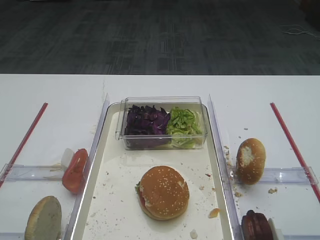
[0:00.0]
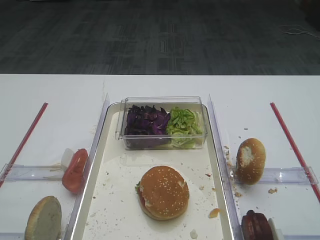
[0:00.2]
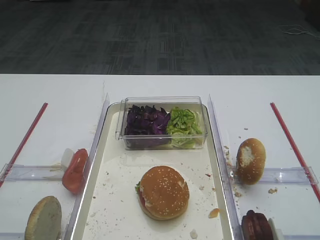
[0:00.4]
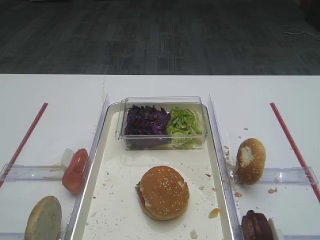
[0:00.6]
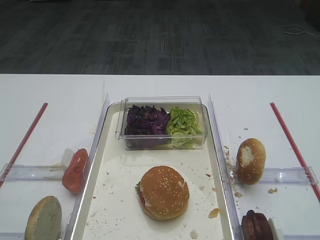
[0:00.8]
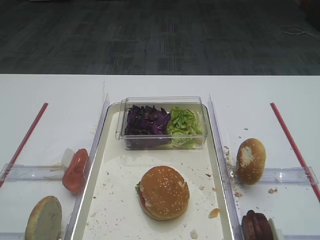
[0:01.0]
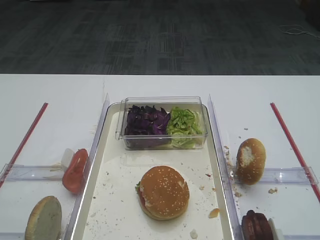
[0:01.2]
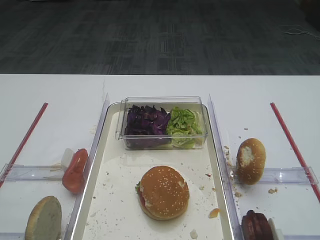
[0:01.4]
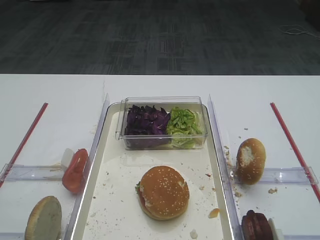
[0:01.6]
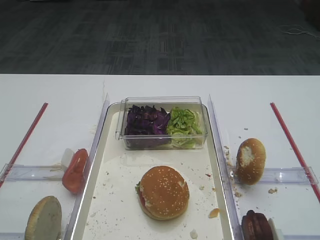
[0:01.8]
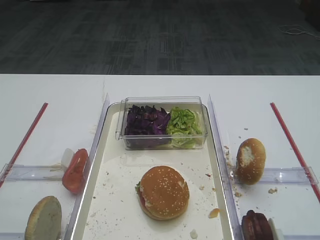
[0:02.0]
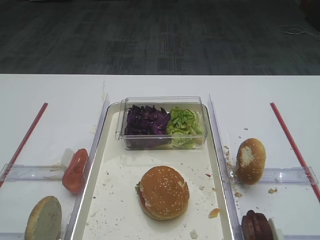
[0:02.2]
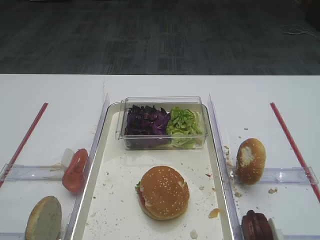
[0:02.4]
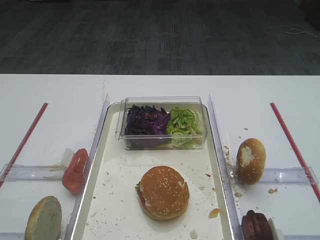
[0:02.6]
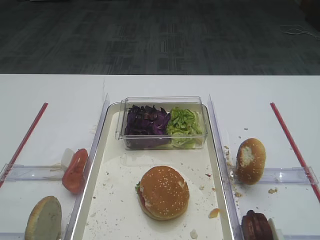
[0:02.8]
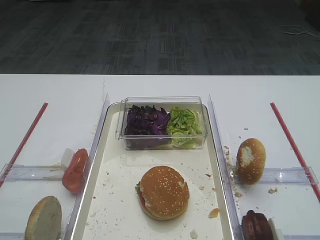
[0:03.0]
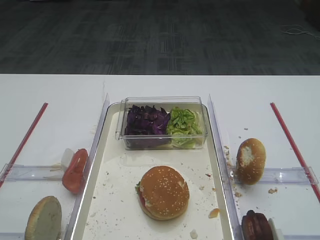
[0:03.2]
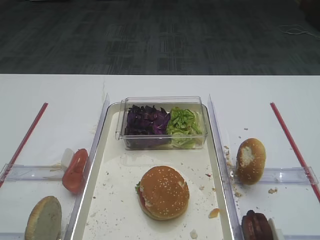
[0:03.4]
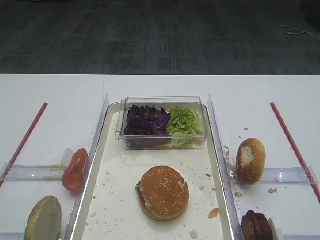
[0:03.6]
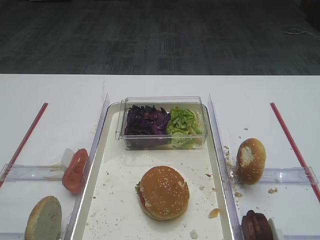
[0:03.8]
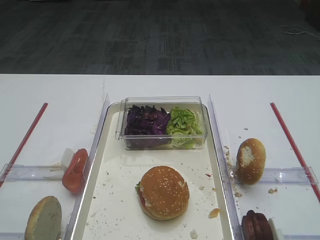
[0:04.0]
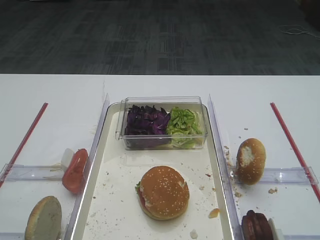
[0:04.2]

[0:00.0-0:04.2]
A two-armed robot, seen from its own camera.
0:01.4 to 0:04.2: Both grippers stay about where they are.
